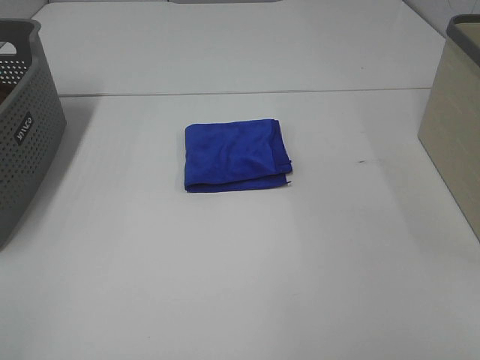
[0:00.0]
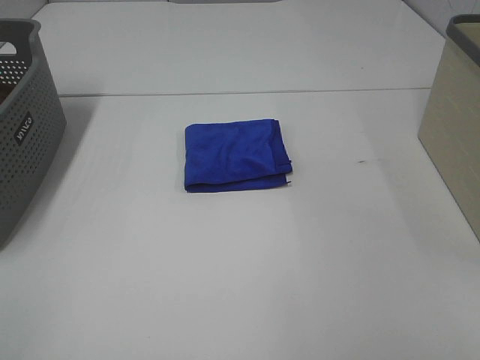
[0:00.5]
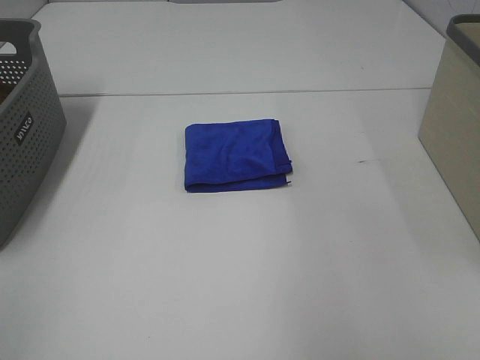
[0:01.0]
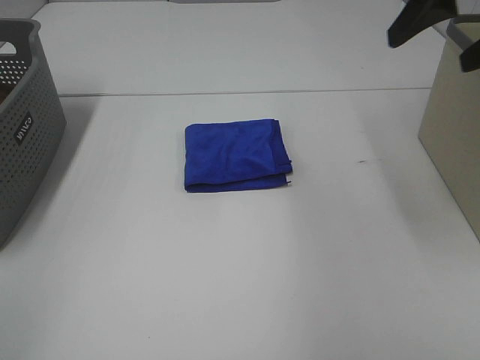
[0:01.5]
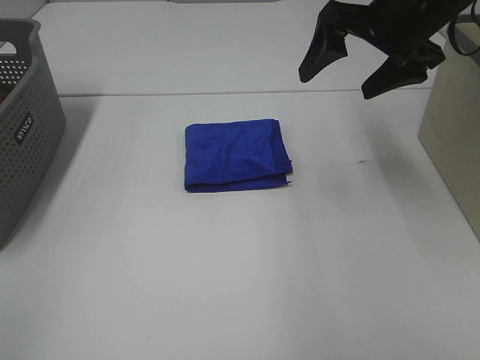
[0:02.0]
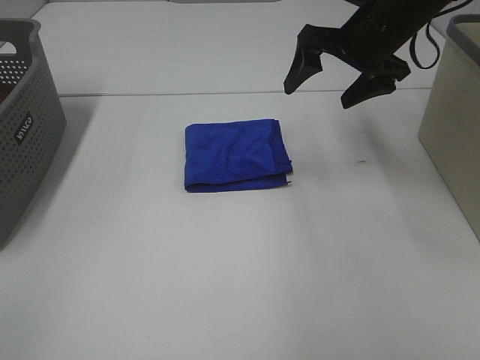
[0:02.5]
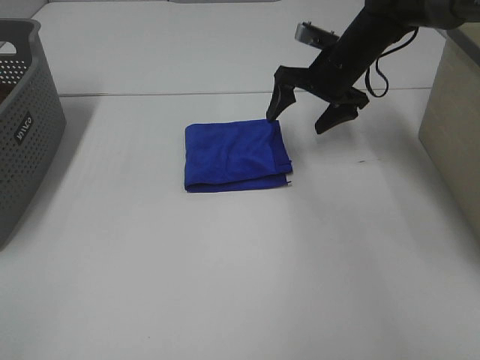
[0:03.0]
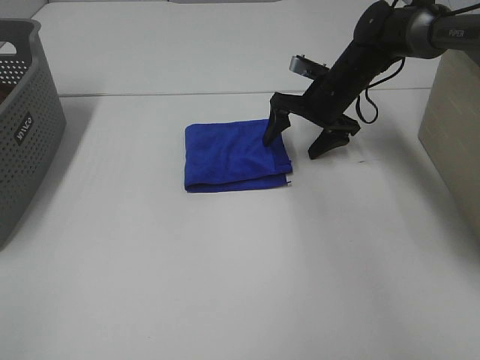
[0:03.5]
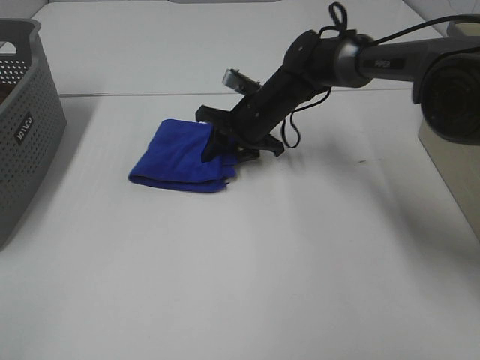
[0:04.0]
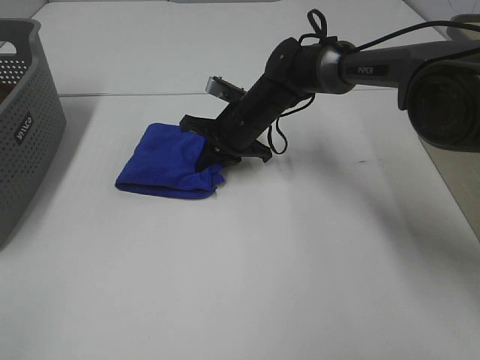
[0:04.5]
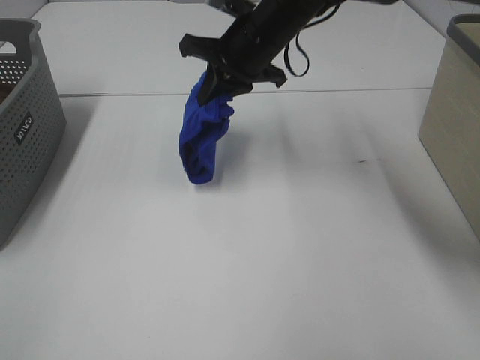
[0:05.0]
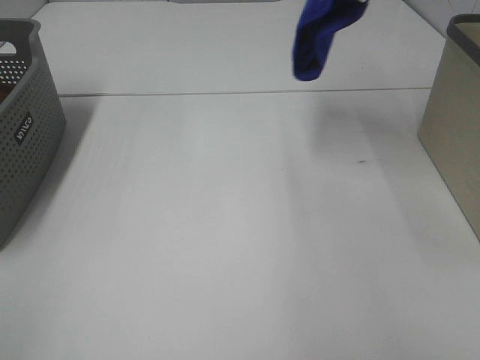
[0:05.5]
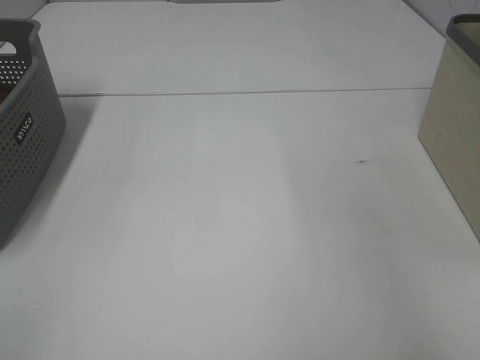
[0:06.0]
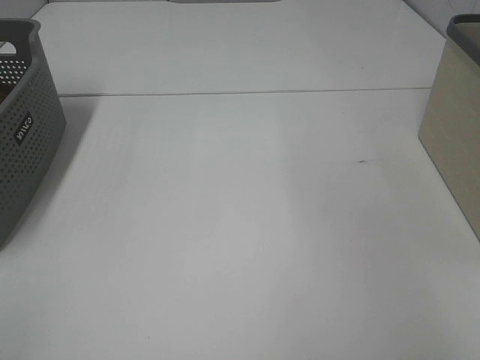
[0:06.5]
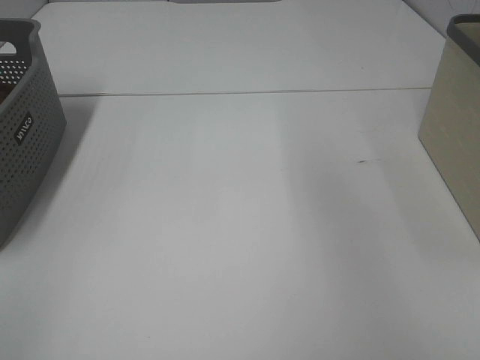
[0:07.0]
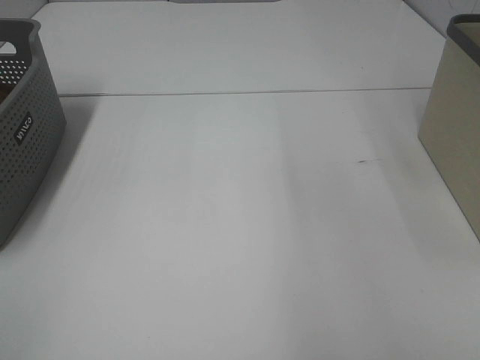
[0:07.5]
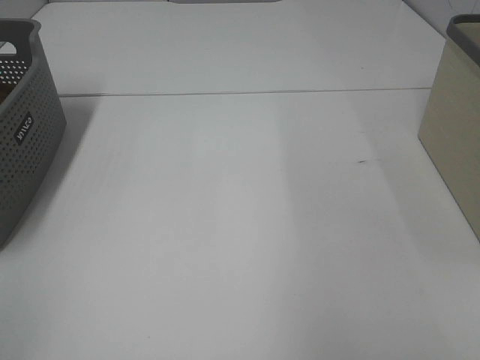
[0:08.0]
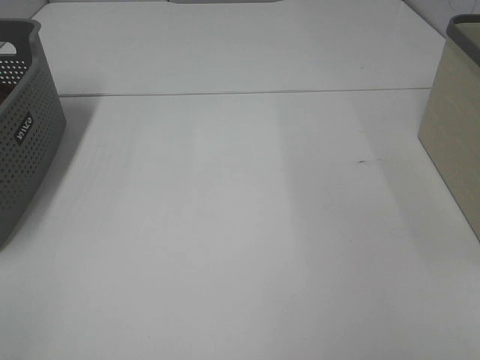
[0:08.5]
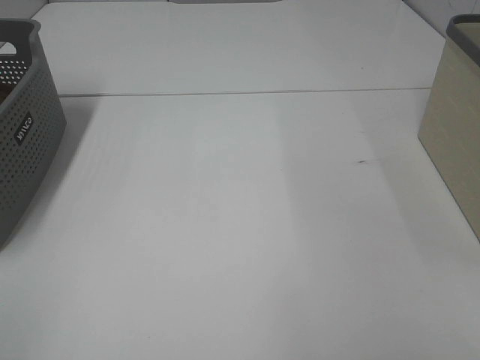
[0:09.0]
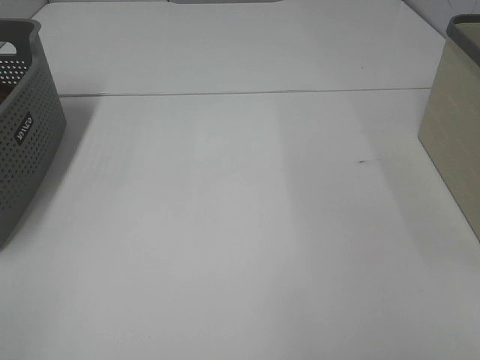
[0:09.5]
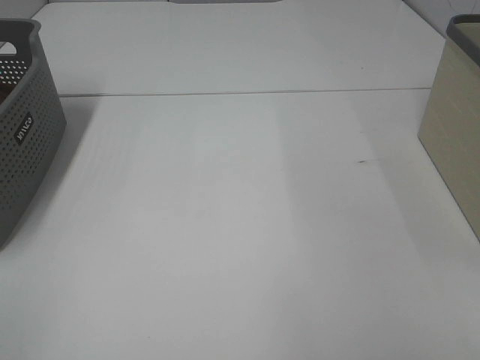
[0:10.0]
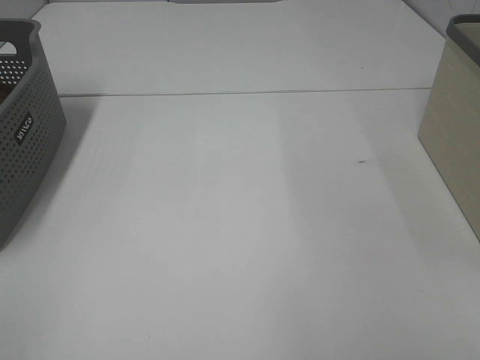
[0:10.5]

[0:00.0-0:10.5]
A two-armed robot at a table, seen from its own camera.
Step, 0:00.0 to 0:04.0: Right hand: grab the folded blue towel.
Step, 0:04.5 to 0:06.5: Right hand: place the blue towel in right basket.
0:00.0 to 0:02.0: The right gripper shifts approximately 40 cm forward.
0:02.0 to 0:04.0: The right gripper moves downward, to the left and forward, about 25 cm, and closes.
0:04.0 to 0:06.5: The right gripper is displaced to the right and upward by roughly 50 cm.

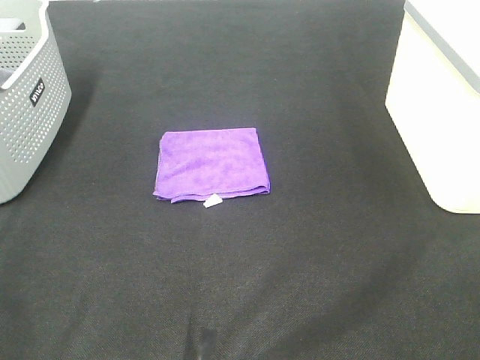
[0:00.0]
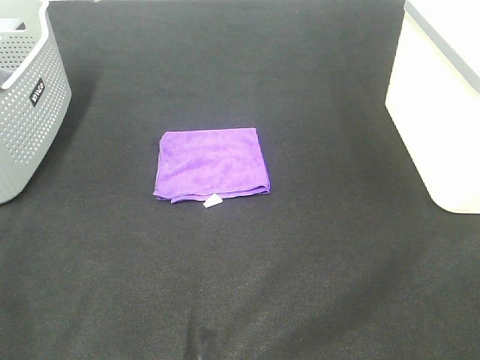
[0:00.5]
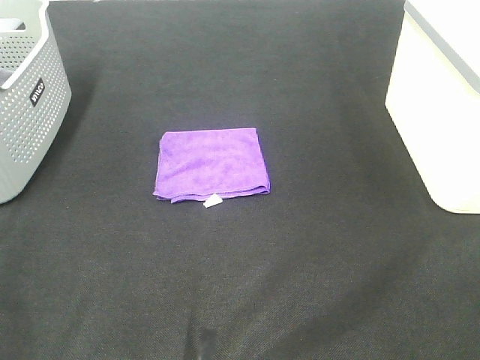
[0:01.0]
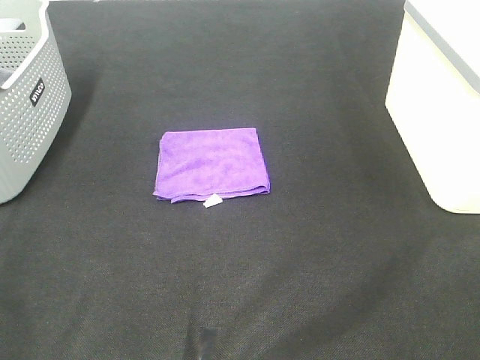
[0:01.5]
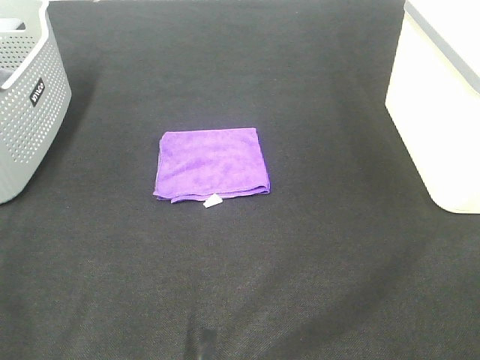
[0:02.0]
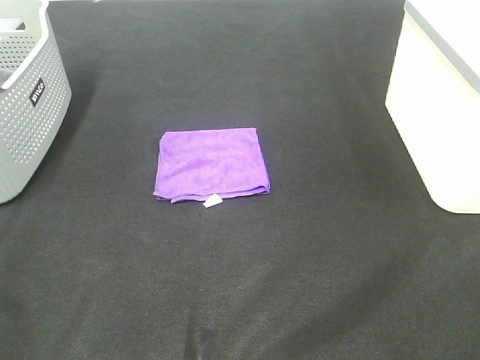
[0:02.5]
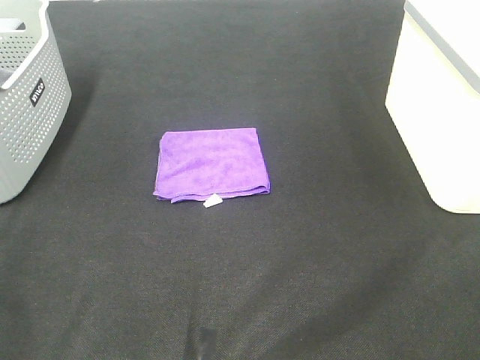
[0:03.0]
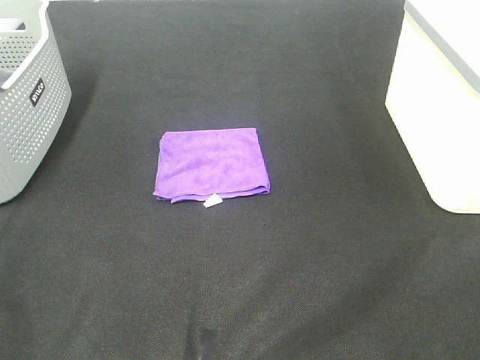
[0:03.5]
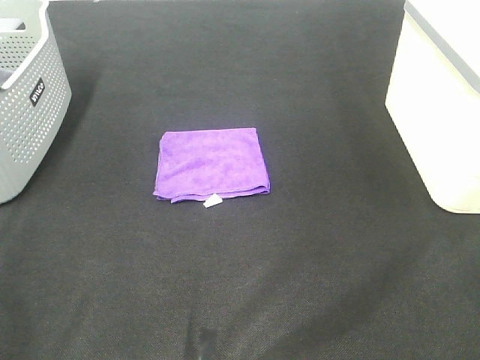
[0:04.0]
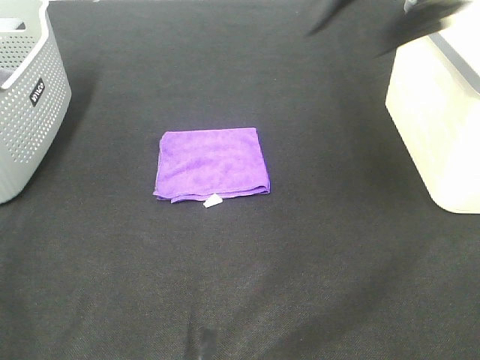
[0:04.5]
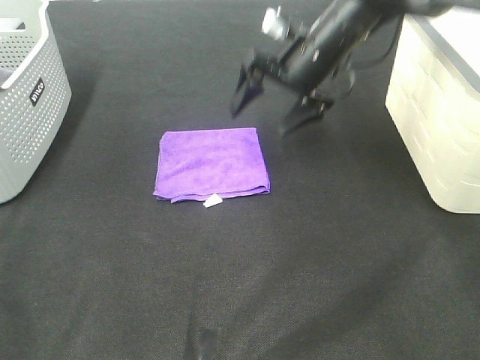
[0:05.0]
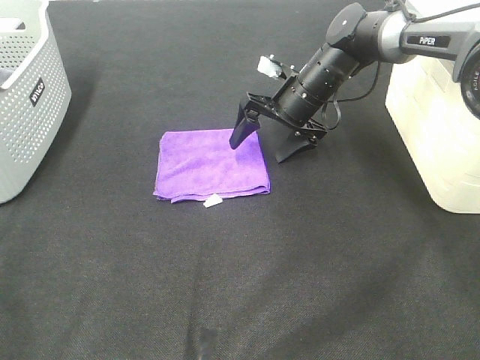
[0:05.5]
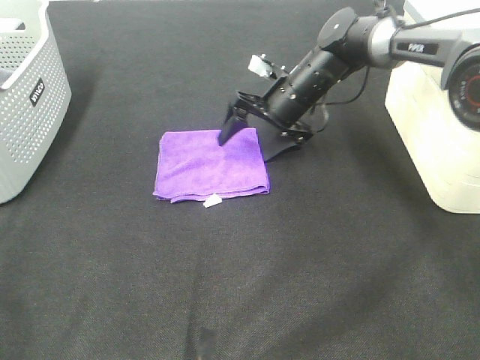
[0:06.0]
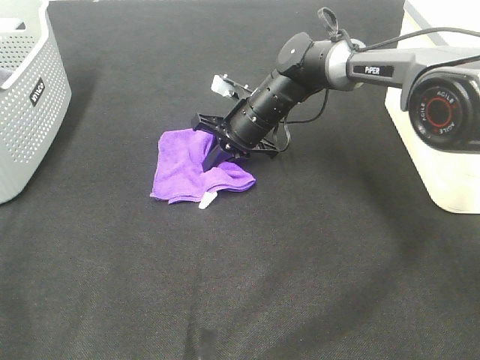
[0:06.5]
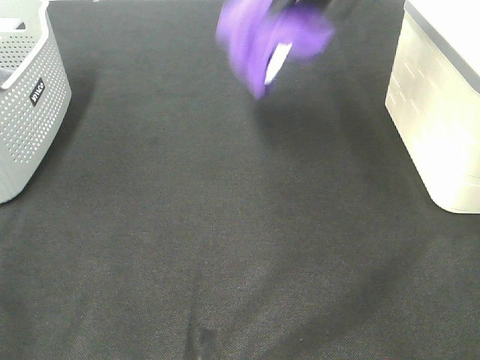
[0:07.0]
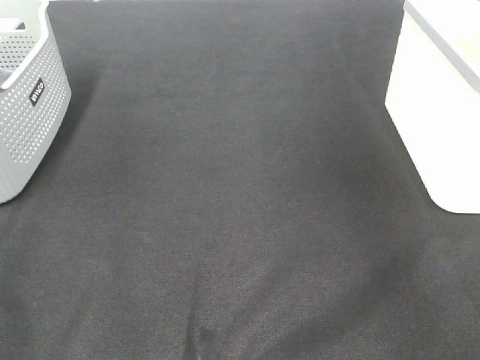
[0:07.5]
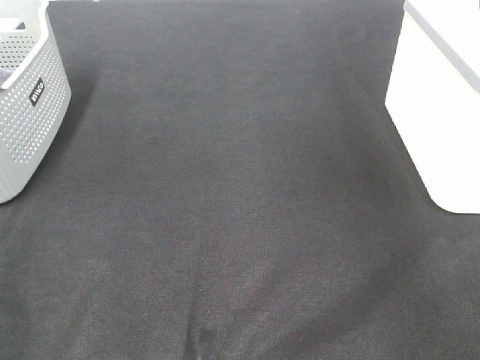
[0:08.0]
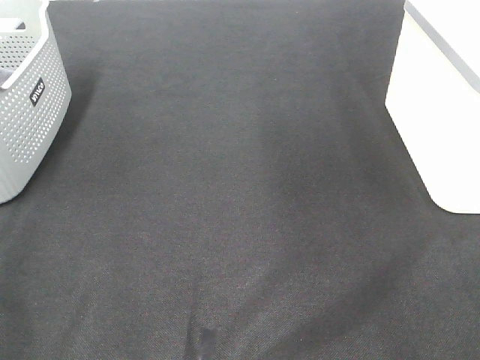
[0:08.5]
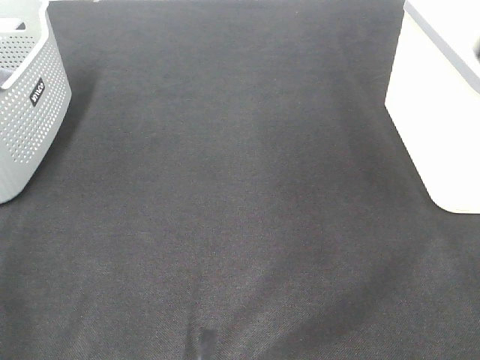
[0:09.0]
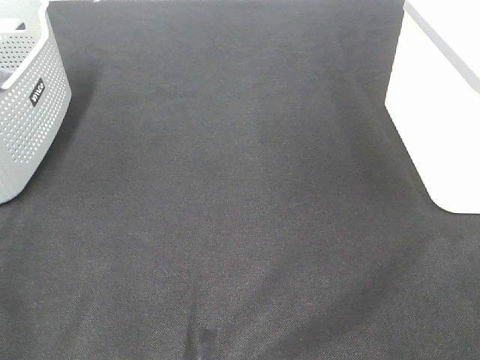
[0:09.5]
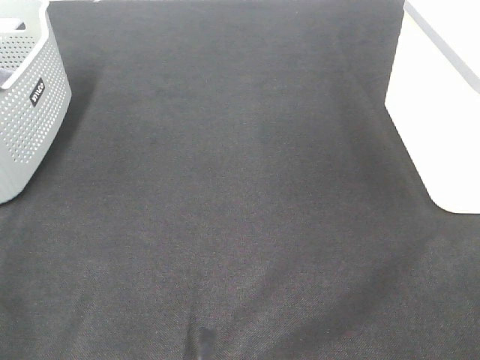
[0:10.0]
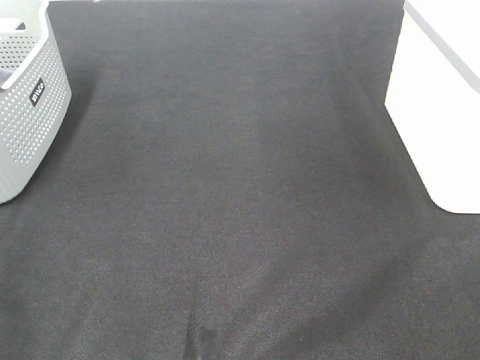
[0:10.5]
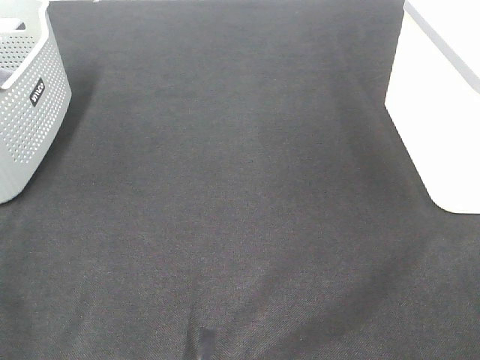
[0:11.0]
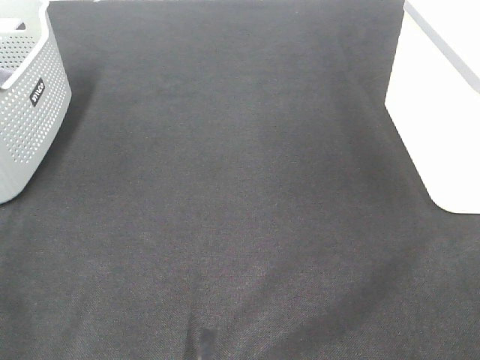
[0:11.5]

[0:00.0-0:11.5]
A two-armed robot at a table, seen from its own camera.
Step, 0:00.0 to 0:06.5: Right hand: grab the folded purple towel.
Step, 0:07.0 to 0:08.0: Right hand: place the purple towel in right basket.
0:00.0 to 0:02.0: The two grippers keep their place.
0:04.0 to 0:06.0: The right gripper heads forward, downward and to the left, covering roughly 50 cm.
0:06.0 to 0:07.5: The right gripper is displaced upward and to the right by roughly 40 cm, and closes up.

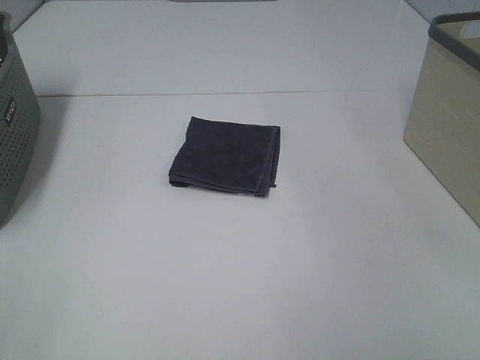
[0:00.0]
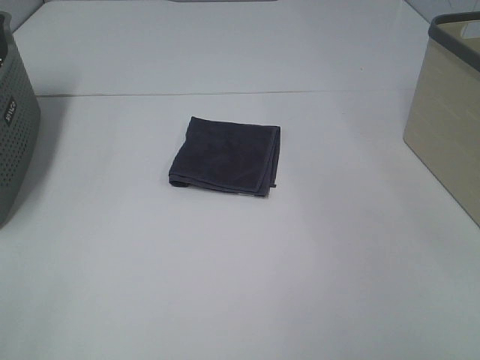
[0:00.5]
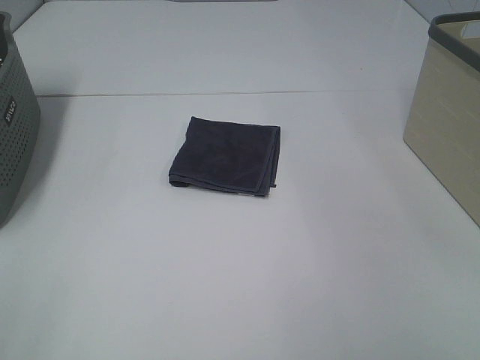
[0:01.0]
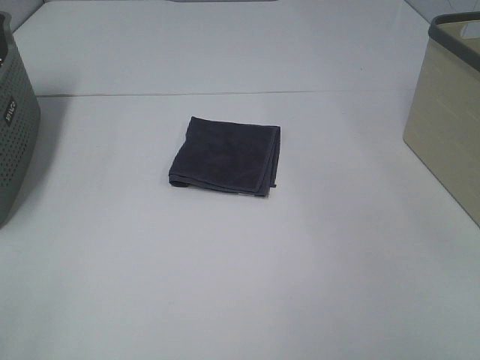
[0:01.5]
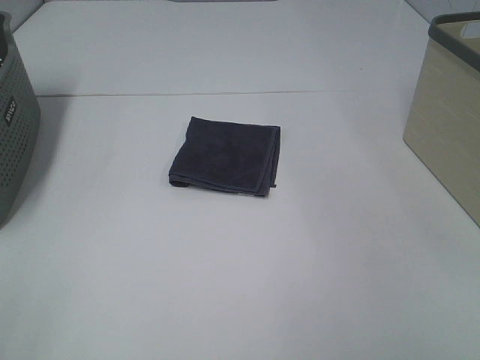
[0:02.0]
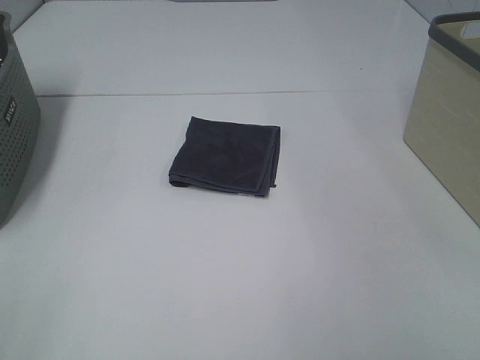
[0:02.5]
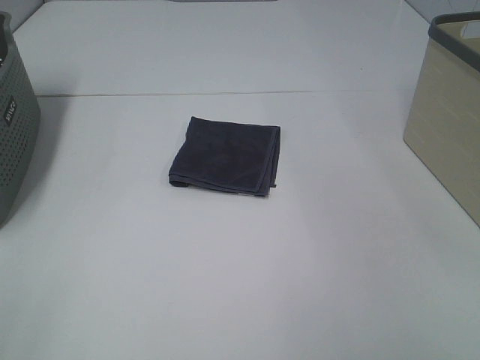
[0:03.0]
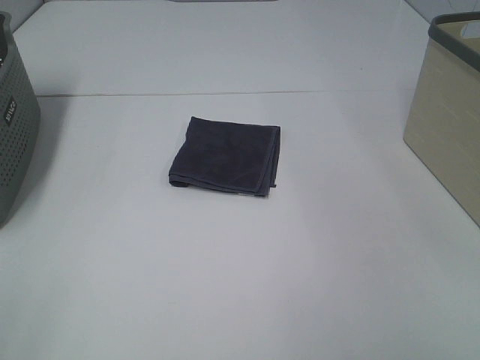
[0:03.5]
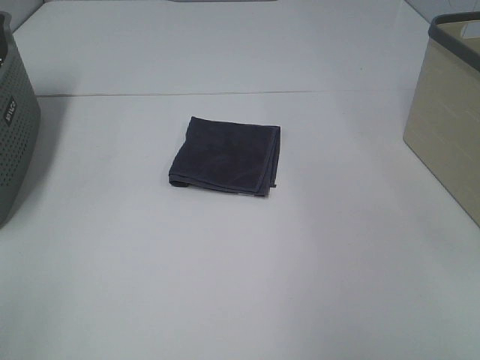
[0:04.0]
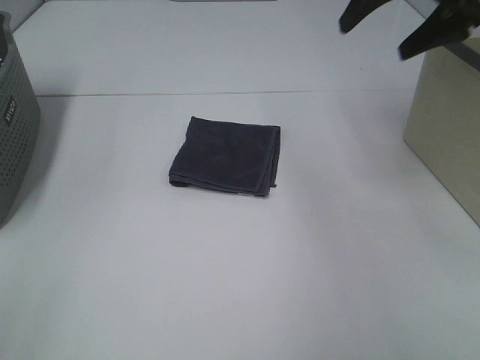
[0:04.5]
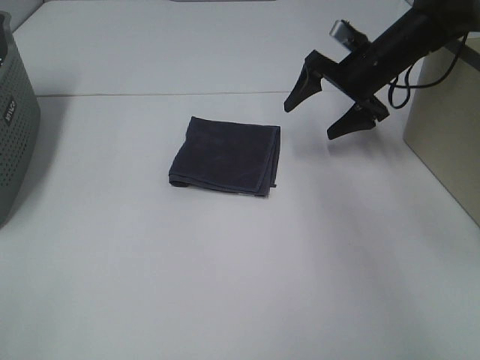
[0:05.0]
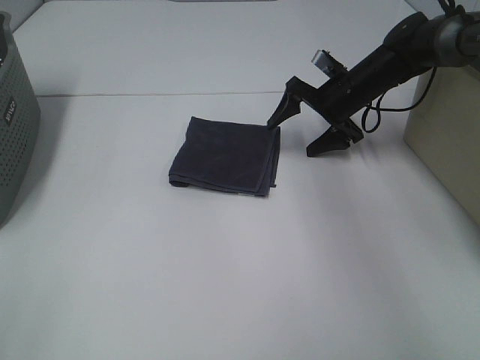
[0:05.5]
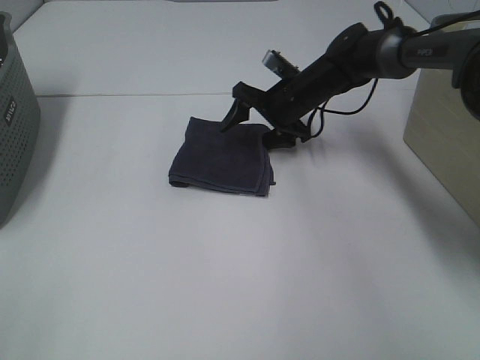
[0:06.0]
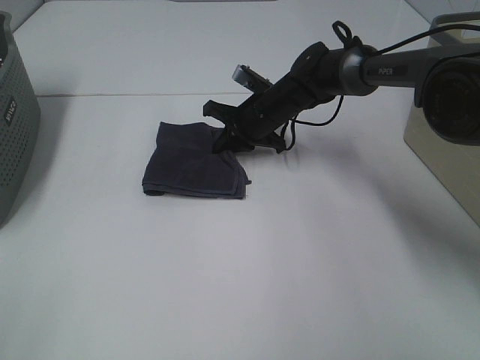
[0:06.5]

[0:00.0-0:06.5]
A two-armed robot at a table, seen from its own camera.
Step, 0:00.0 to 0:06.0: Right hand: grab the folded grey towel.
0:00.0 to 0:02.0: Both grippers stay put.
0:02.0 to 0:04.5: The right gripper travels forward by some 40 cm.
0:04.5 to 0:06.5: The right gripper travels downward and to the left by roughly 30 cm, and closes.
